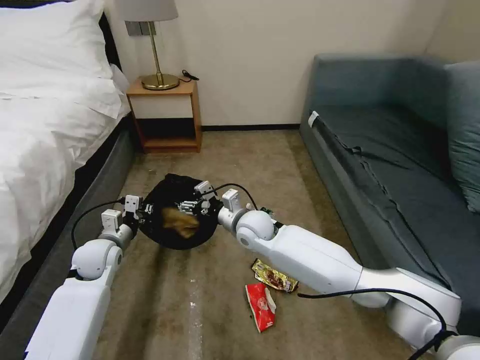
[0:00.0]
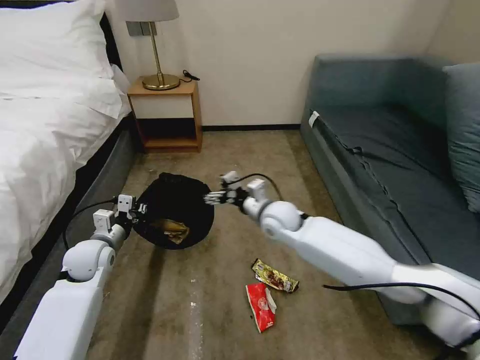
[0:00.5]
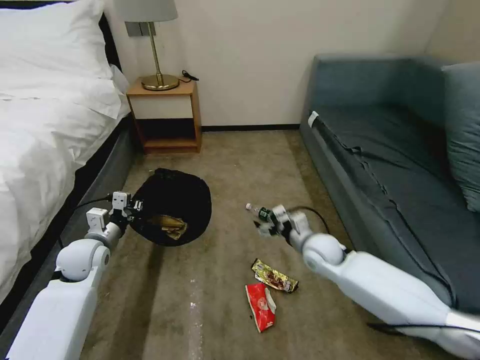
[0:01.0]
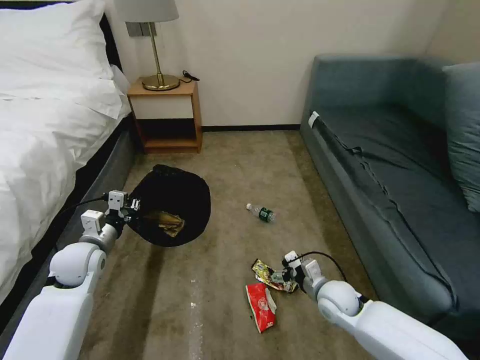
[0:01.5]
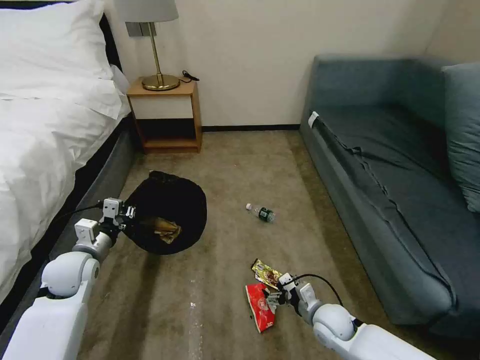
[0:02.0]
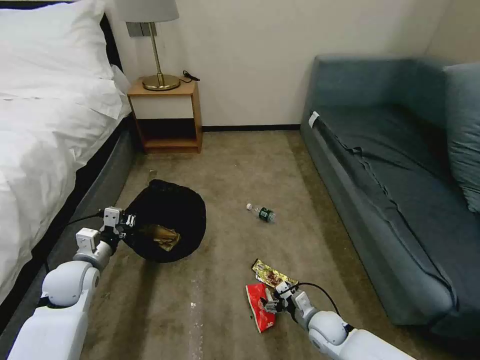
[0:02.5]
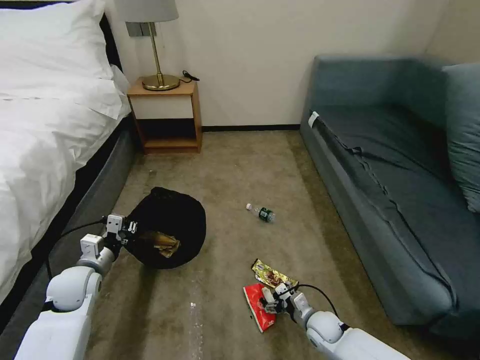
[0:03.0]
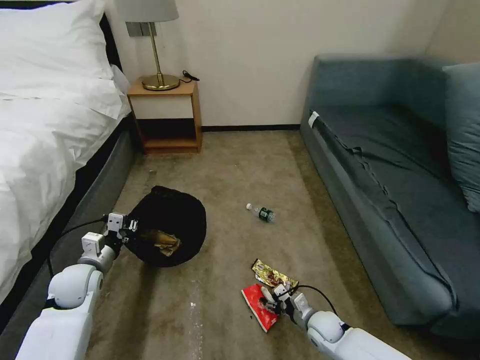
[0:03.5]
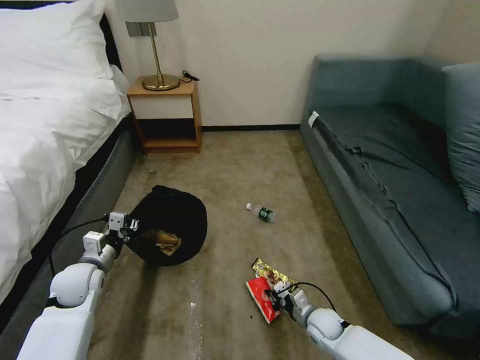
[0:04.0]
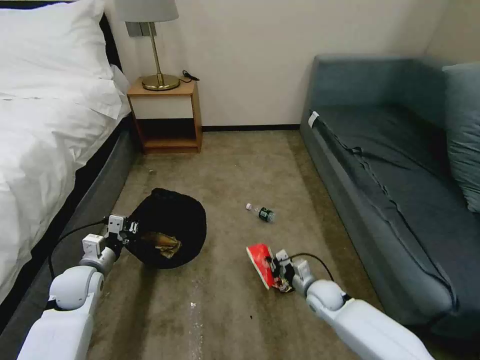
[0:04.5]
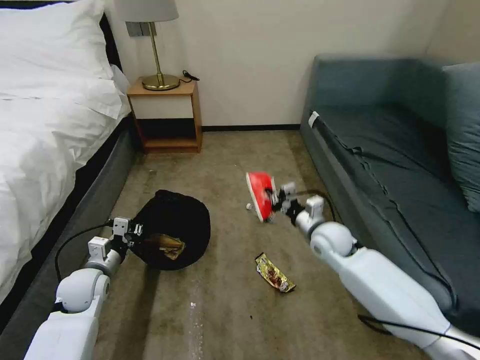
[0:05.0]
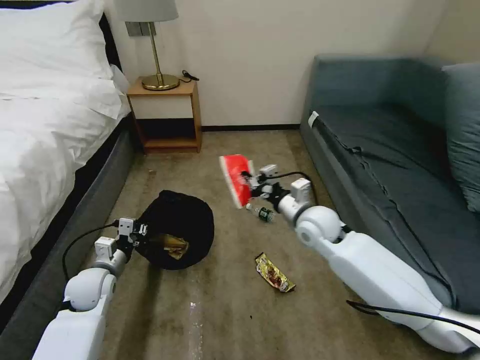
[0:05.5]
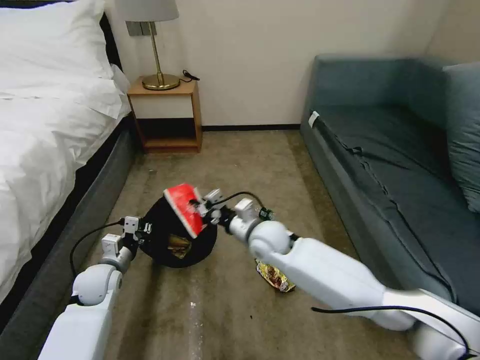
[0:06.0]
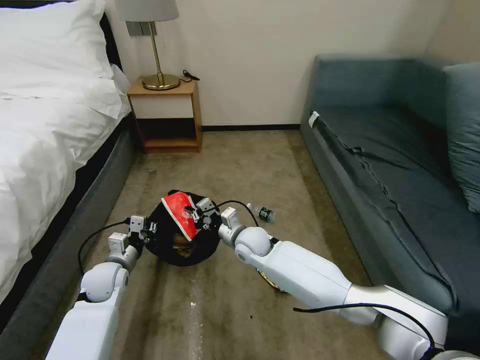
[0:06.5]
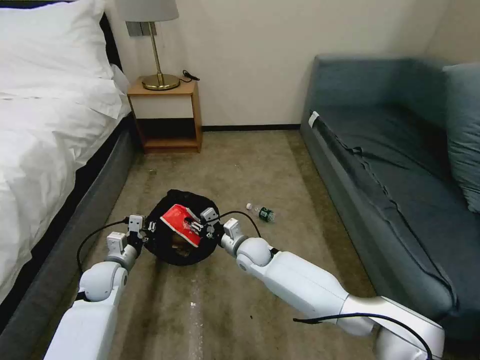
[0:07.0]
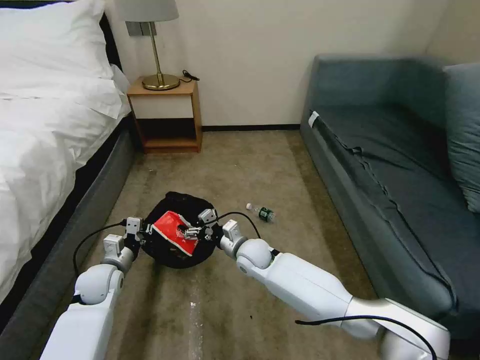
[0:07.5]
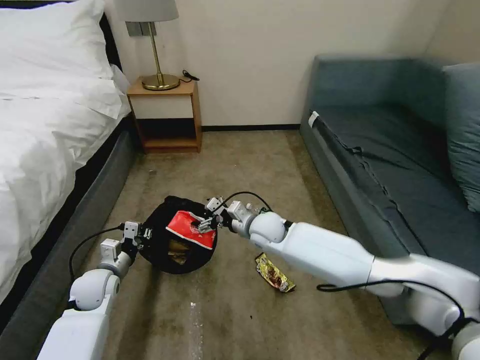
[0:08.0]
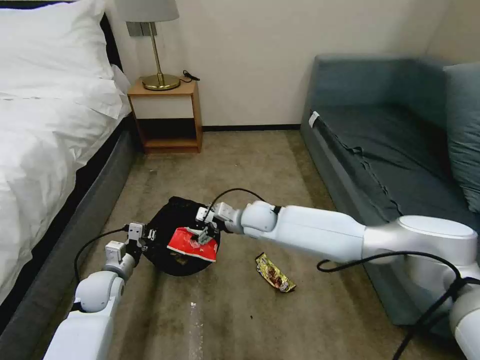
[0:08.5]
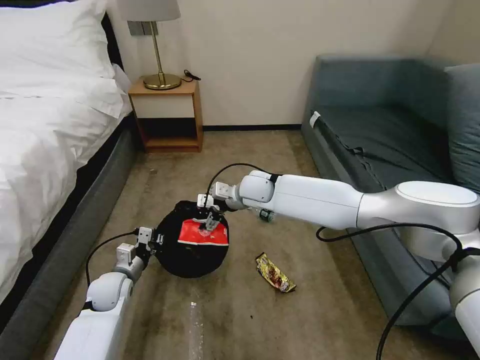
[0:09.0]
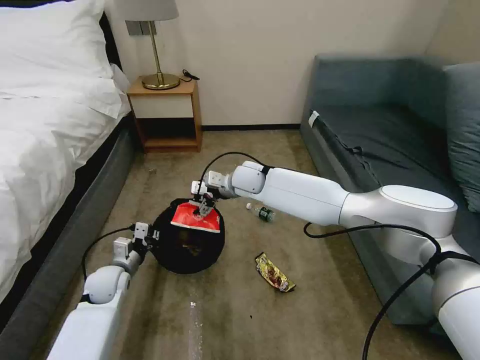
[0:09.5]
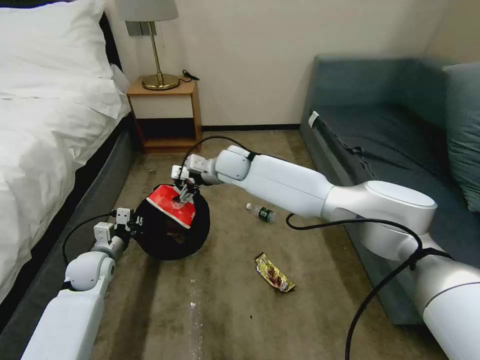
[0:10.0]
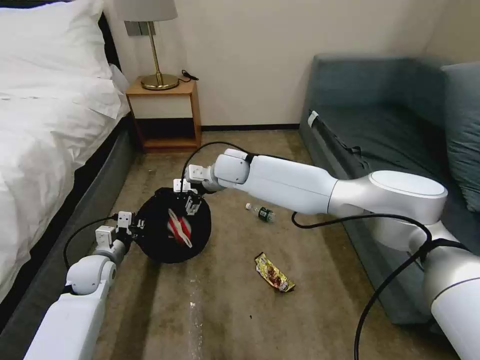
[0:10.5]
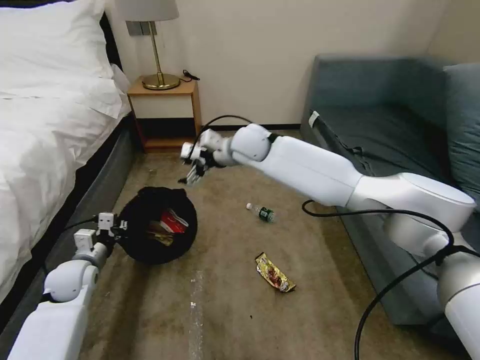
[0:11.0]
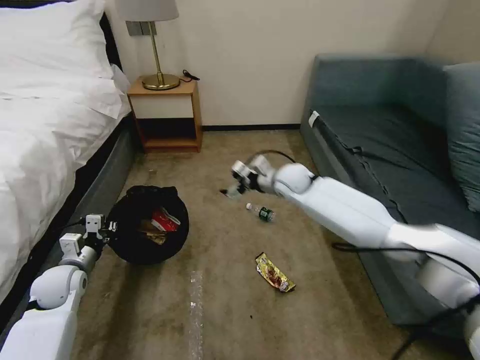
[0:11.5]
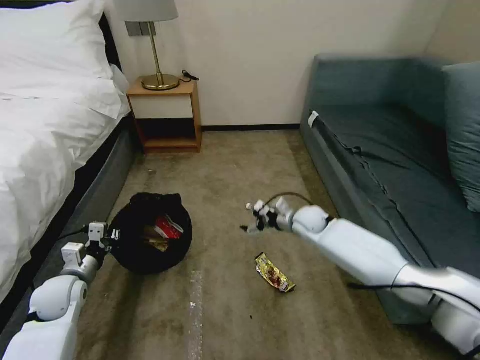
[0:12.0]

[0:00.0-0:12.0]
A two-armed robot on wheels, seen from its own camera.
Task of the whole recording: Pick up the trash bin, then pick up the garbage on the floor and place it into the trash bin.
0:00.0 to 0:02.0: The right gripper goes about 30 cm to the right, downward and backward, while the left gripper moves about 5 cm.
0:02.0 to 0:04.0: The right gripper is displaced downward by approximately 5 cm, and closes its fingers.
0:04.0 to 0:06.0: The right gripper travels upward, to the left and forward by roughly 35 cm.
0:06.0 to 0:08.0: The right gripper goes downward and returns, about 10 cm each way, and opens.
0:08.0 to 0:10.0: The right gripper travels upward, forward and to the left by approximately 20 cm.
0:10.0 to 0:12.0: The right gripper heads to the right and downward, covering about 30 cm. The left gripper is displaced backward by roughly 5 cm.

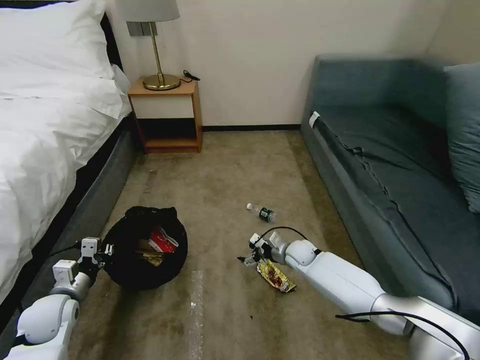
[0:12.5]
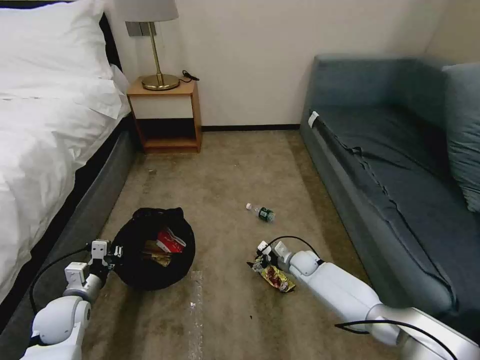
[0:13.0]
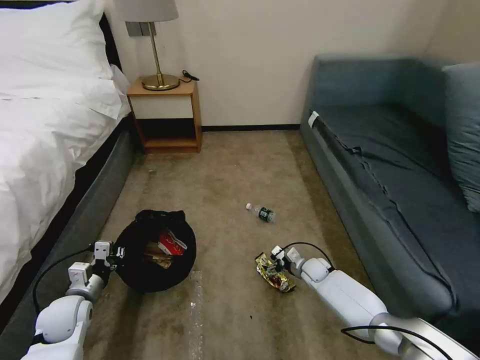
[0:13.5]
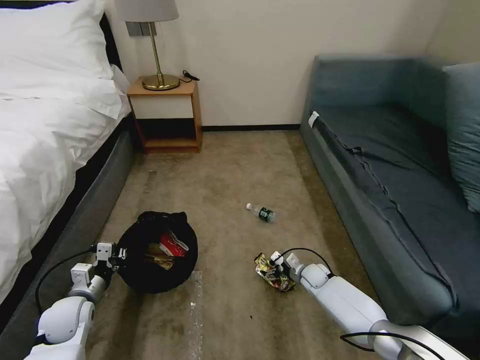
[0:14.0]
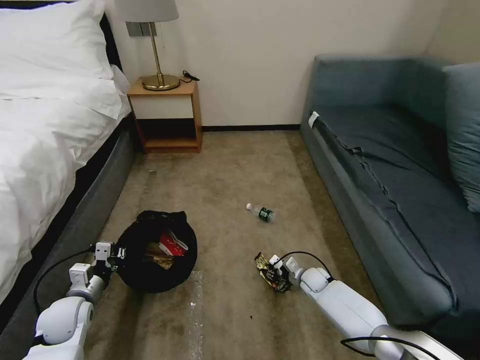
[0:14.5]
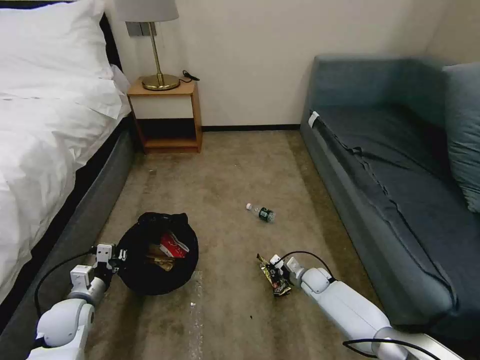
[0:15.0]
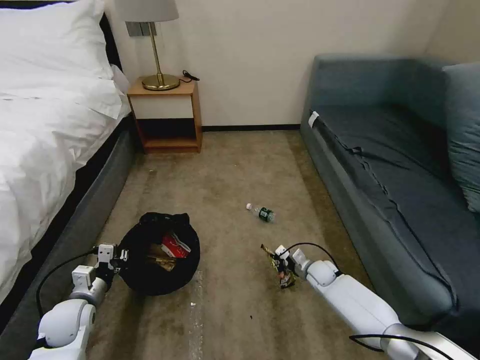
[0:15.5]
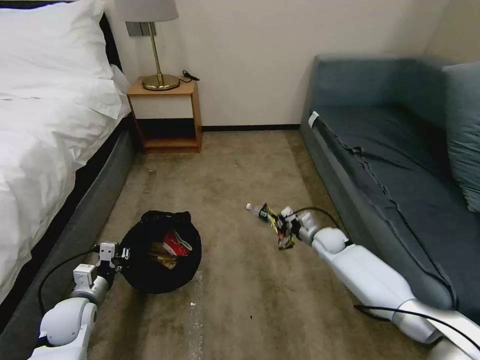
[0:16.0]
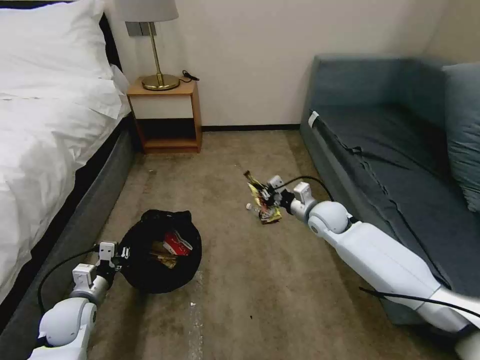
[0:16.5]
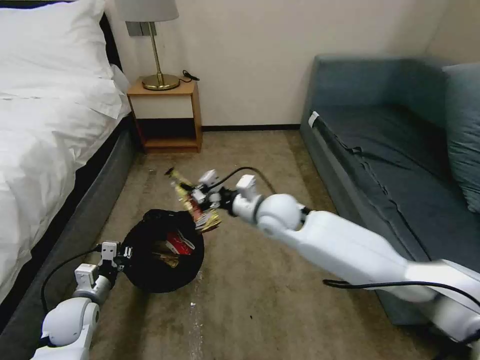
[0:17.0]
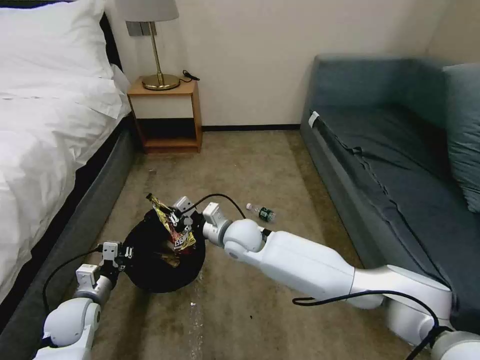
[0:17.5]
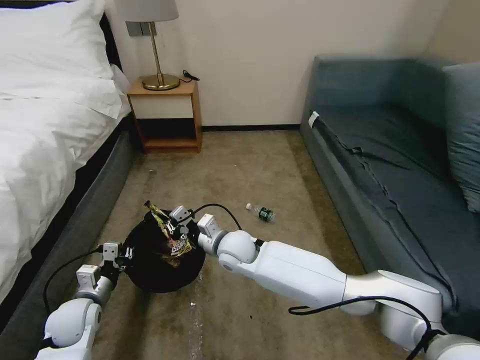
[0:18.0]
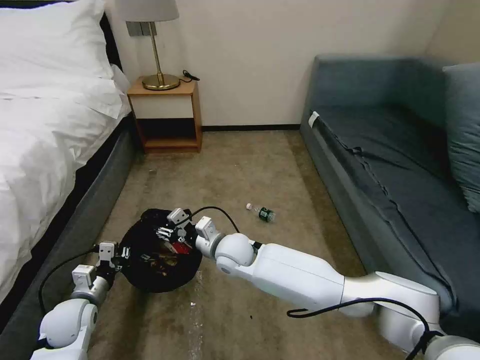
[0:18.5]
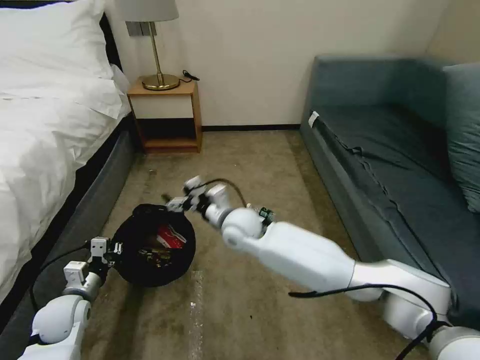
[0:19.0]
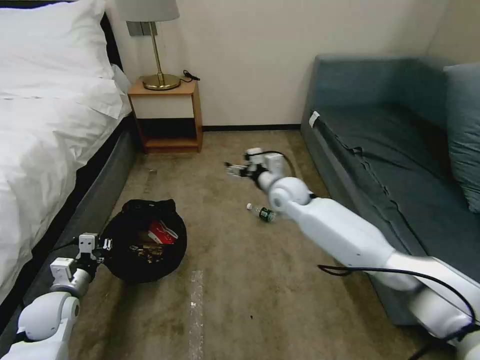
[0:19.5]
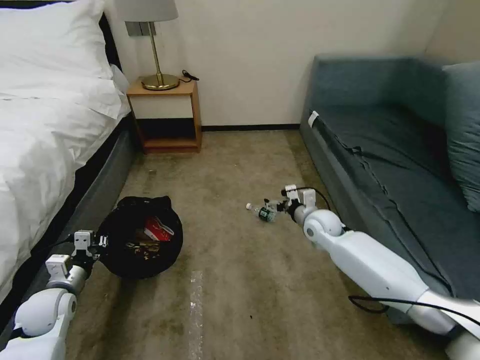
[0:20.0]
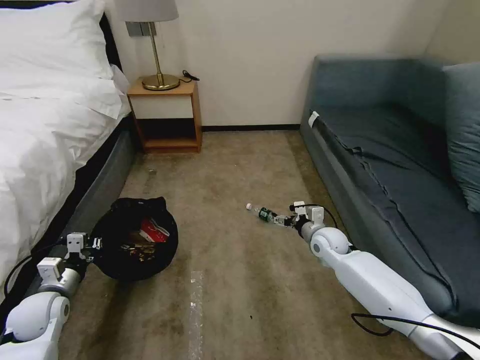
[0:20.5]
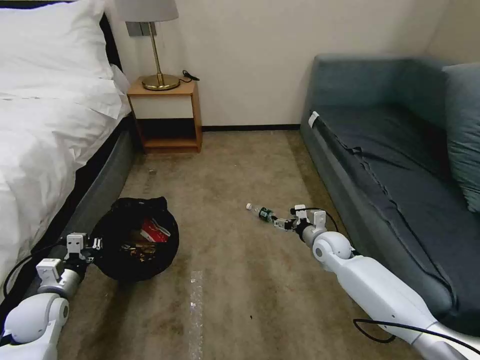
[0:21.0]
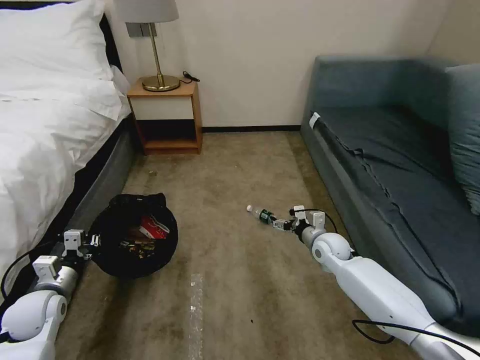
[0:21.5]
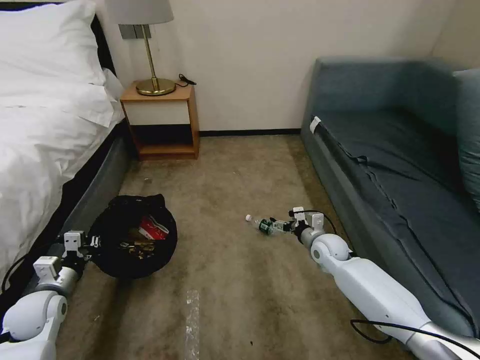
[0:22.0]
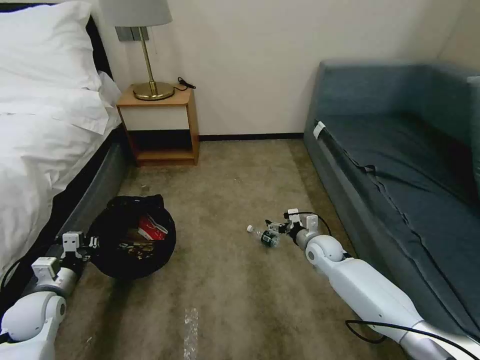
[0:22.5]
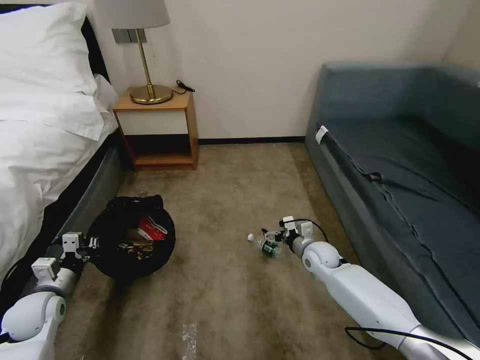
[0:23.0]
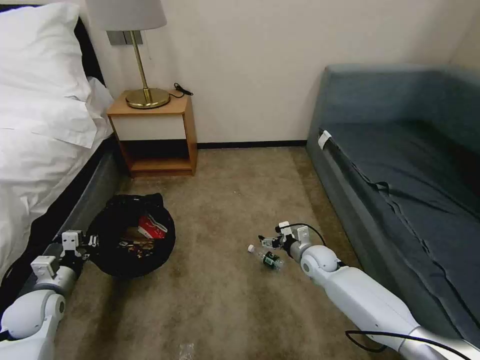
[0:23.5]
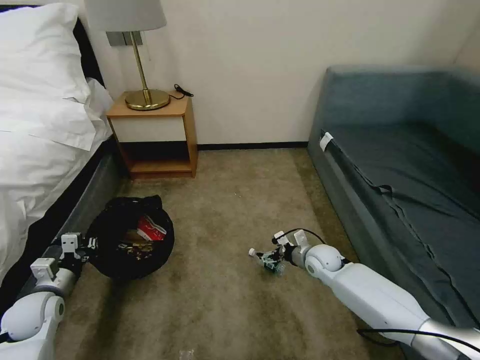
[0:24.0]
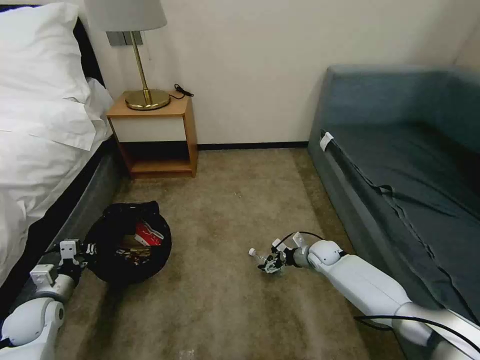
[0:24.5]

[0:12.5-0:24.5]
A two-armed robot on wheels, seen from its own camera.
Task of the whole recording: Pick up the trash bin, then pick up the garbage on the floor and place it into the trash bin.
0:12.5 to 0:14.5: The right gripper heads downward and to the right, covering some 10 cm, and closes its fingers.
0:14.5 to 0:16.5: The right gripper travels upward by approximately 25 cm.
0:16.5 to 0:18.5: The right gripper travels to the left by roughly 25 cm, and opens its fingers.
0:18.5 to 0:20.5: The right gripper travels to the right by some 25 cm, and opens up, while the left gripper goes approximately 5 cm to the left.
0:22.5 to 0:24.5: The right gripper shifts approximately 5 cm downward.

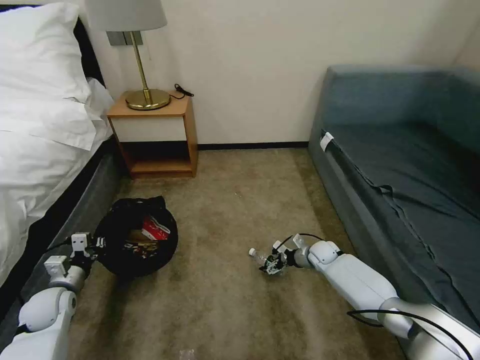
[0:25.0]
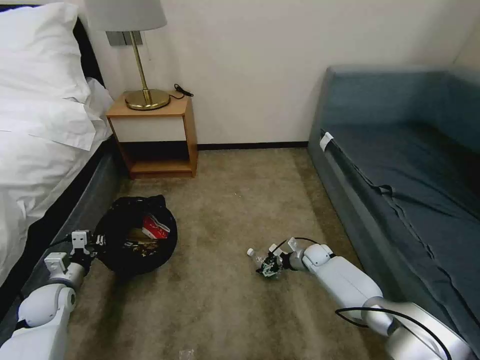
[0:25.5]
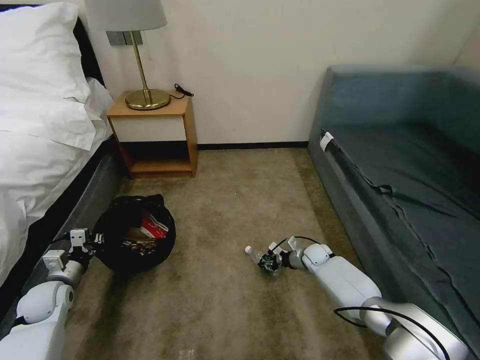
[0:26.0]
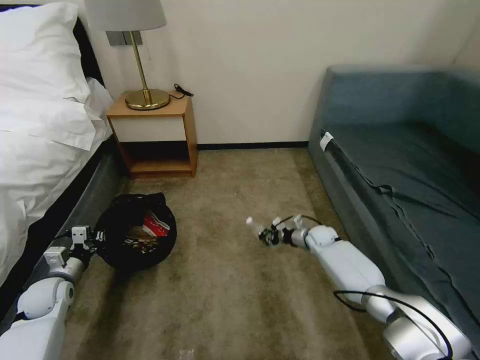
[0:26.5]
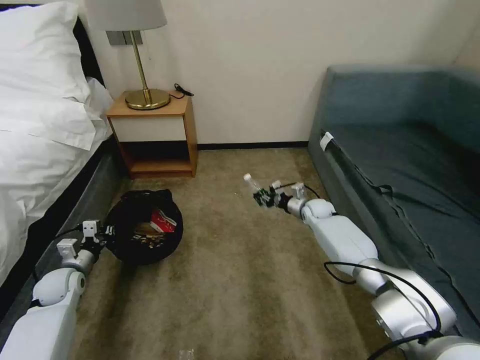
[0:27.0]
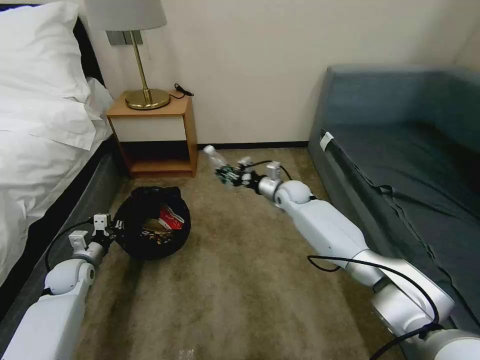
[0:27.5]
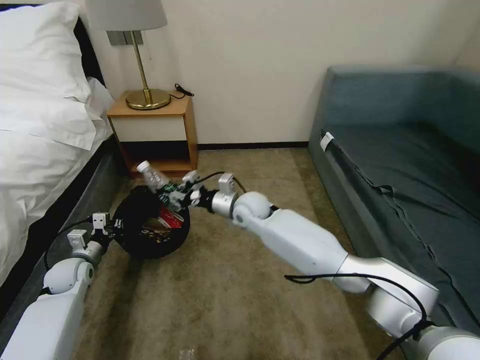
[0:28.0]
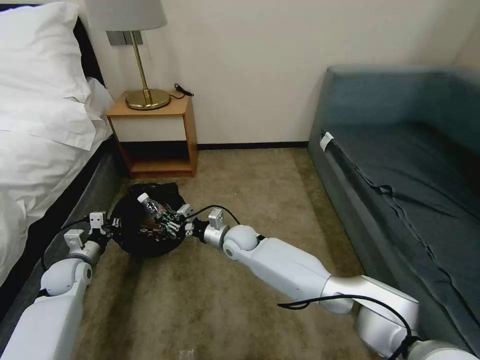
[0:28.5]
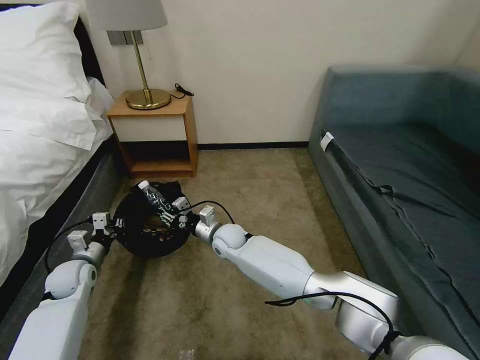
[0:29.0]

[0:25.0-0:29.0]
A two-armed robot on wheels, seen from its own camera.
Task of the whole recording: Pick up the trash bin, then pick up the garbage on the floor and place it into the trash bin.
0:25.0 to 0:27.0: The right gripper travels forward and upward by about 15 cm, and closes its fingers; the left gripper shifts approximately 5 cm forward.
0:27.0 to 0:29.0: The right gripper is displaced to the left by approximately 30 cm.
